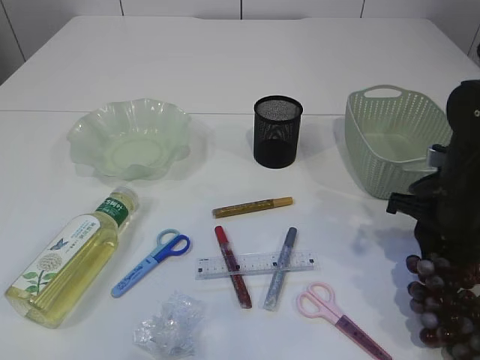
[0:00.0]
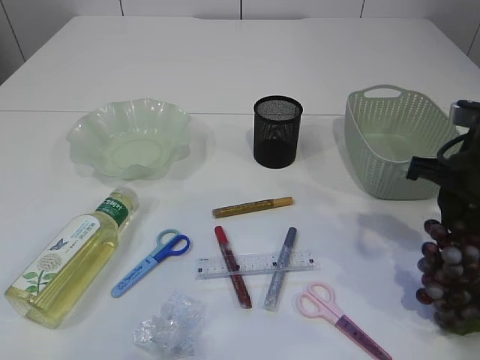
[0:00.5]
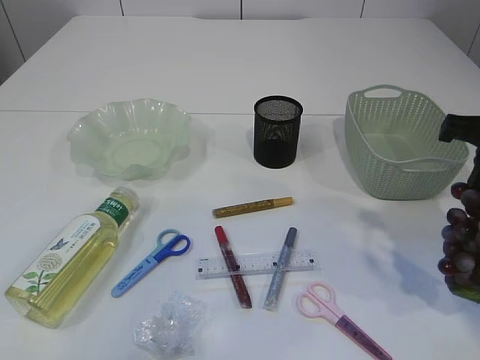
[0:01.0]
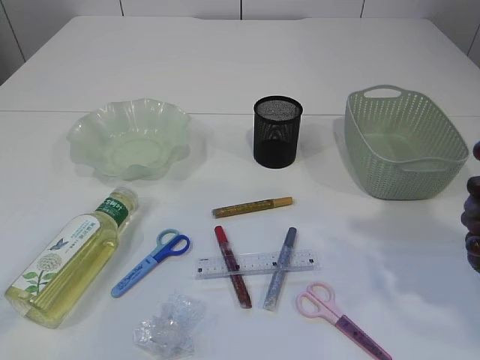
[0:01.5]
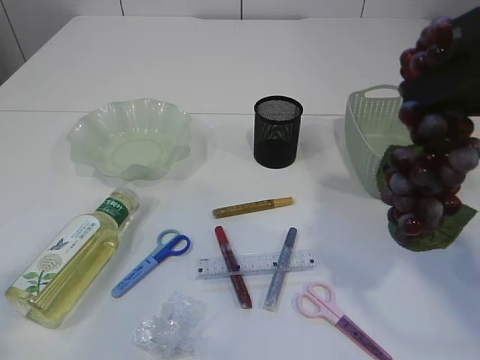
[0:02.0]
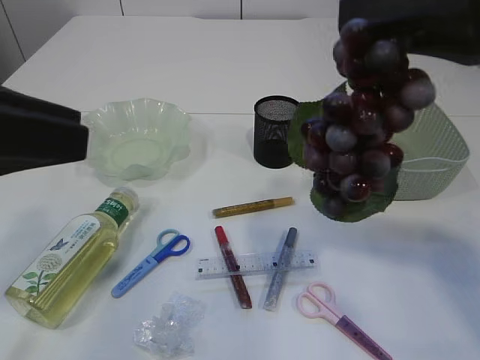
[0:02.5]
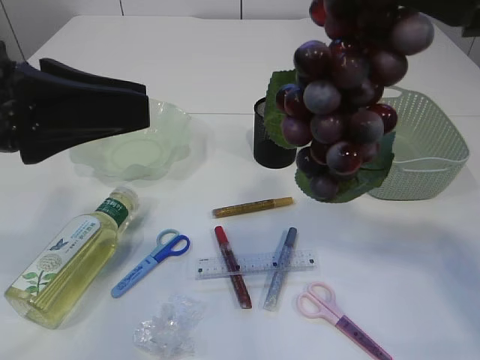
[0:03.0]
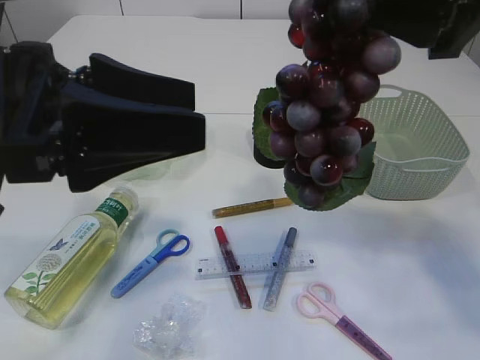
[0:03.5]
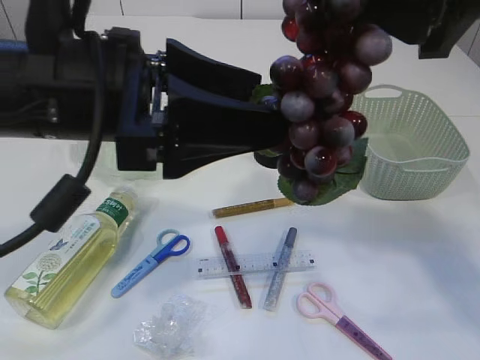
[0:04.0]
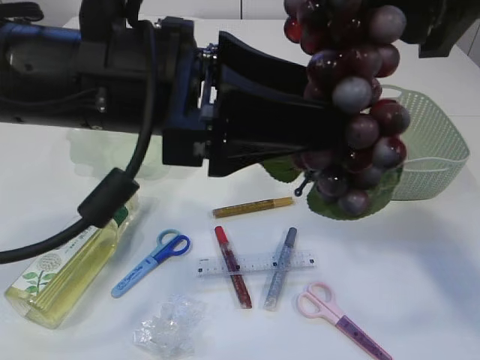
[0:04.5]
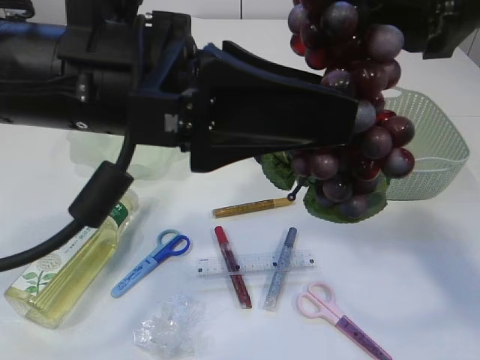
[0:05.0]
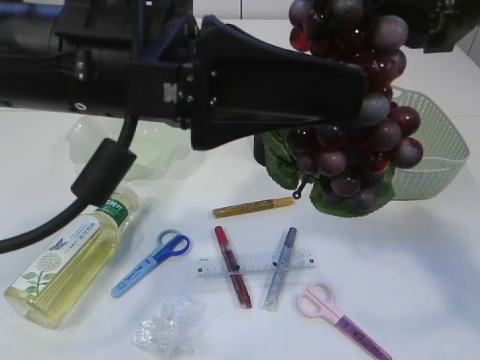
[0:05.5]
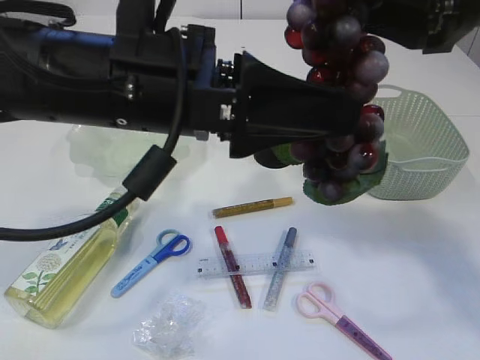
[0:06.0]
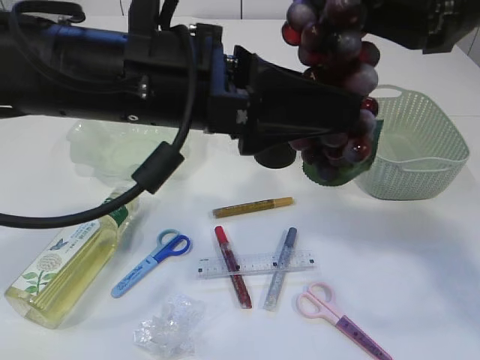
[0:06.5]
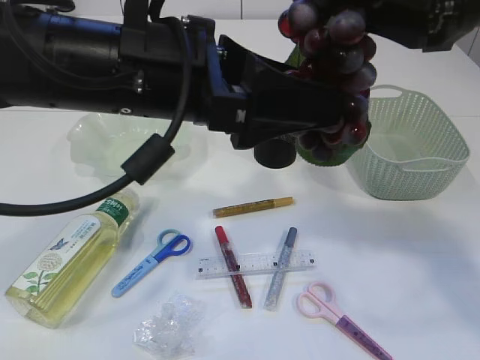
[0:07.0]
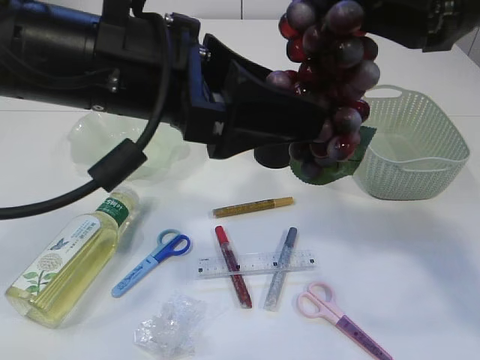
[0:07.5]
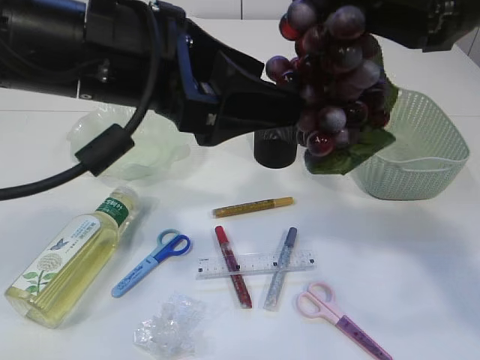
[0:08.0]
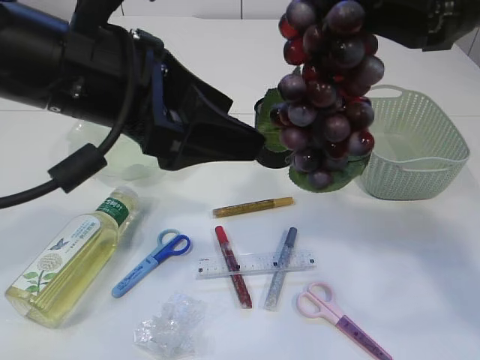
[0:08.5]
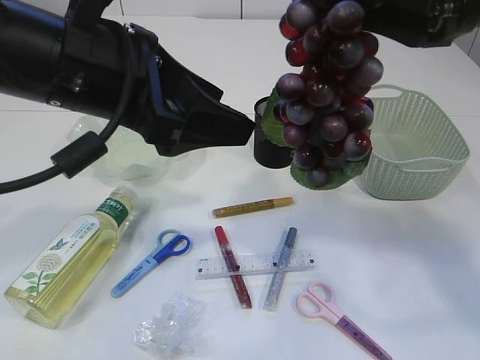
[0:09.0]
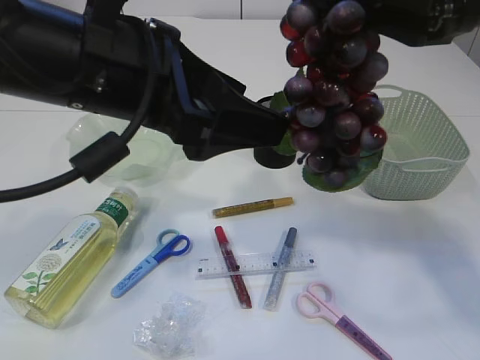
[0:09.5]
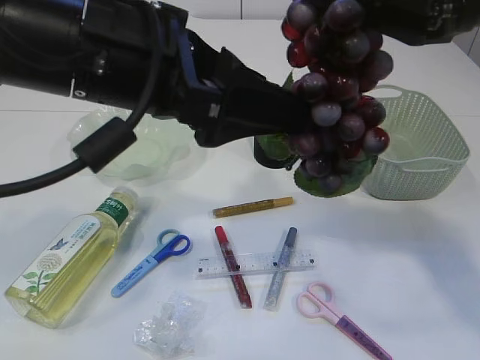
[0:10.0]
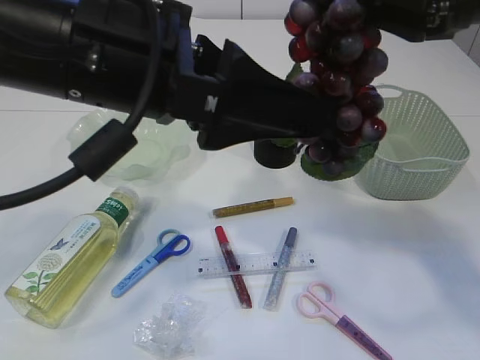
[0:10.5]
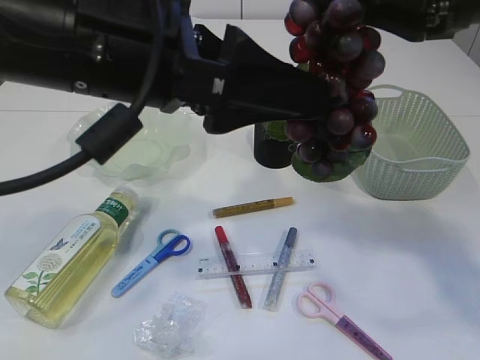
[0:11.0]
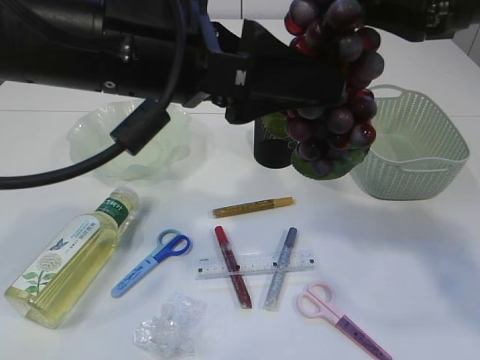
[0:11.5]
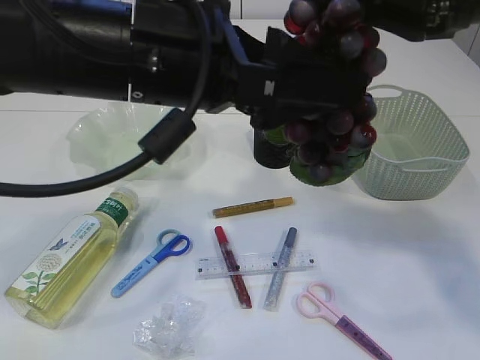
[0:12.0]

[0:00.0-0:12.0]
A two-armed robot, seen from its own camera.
0:00.0 to 0:02.0: The right gripper travels upward and backward by some 25 cm.
0:02.0 to 0:04.0: The left gripper heads to the right and forward, covering some 20 cm, and opens its fingers, while the right gripper ends up about 5 cm from where it was.
0:08.0 to 0:12.0: The grippers stay close to where they were, moving slightly.

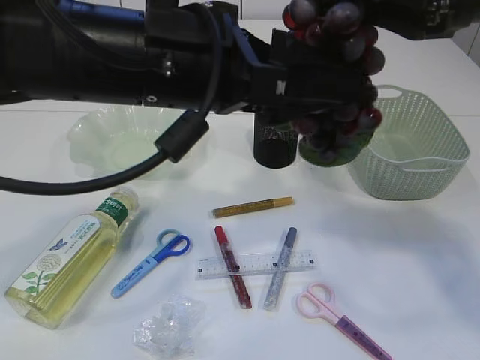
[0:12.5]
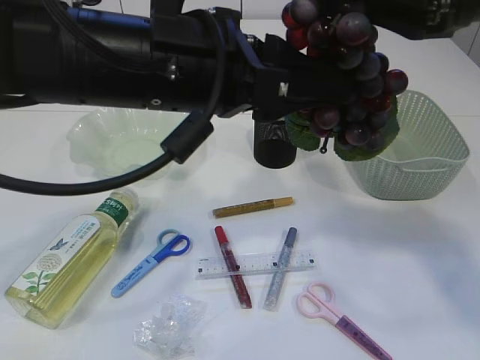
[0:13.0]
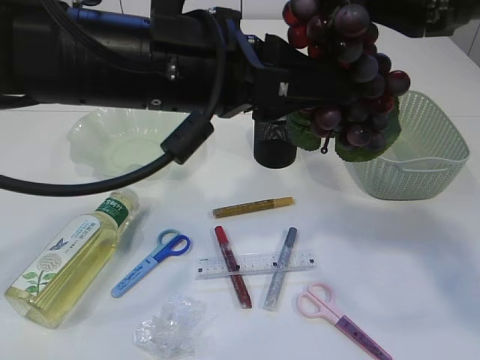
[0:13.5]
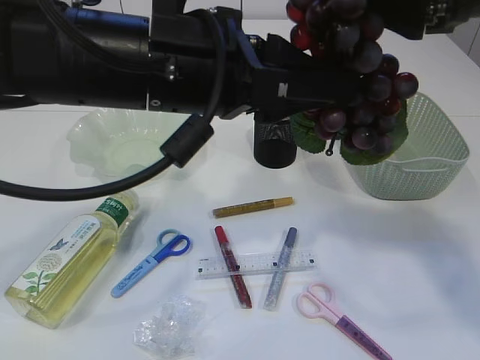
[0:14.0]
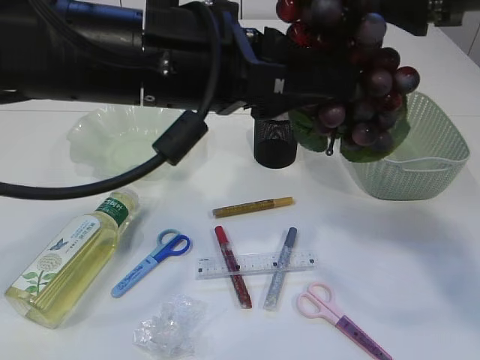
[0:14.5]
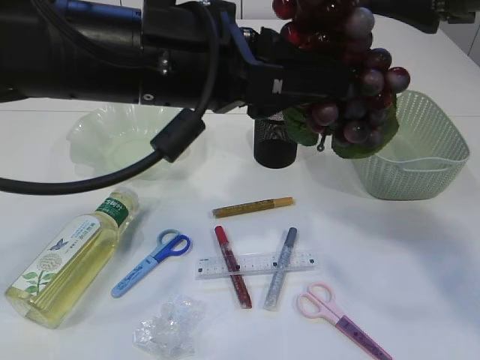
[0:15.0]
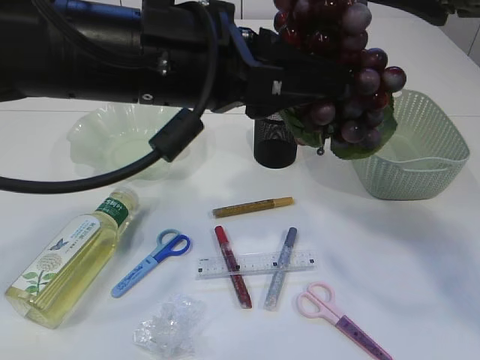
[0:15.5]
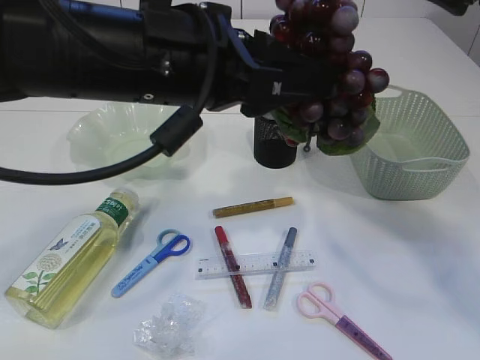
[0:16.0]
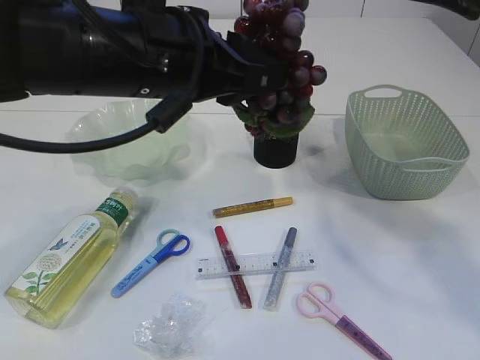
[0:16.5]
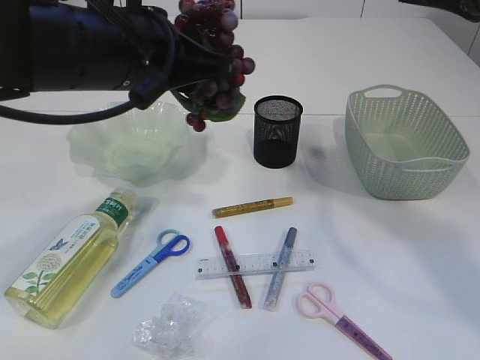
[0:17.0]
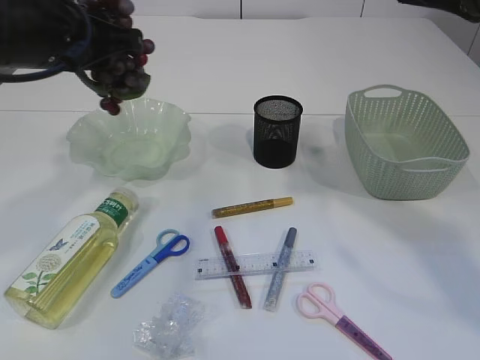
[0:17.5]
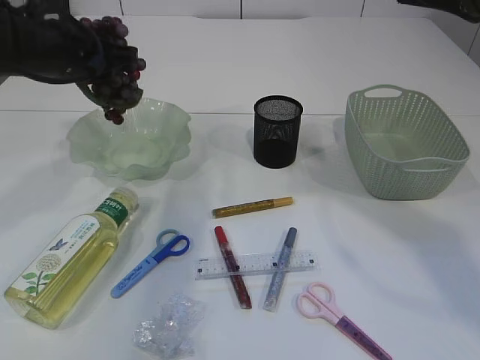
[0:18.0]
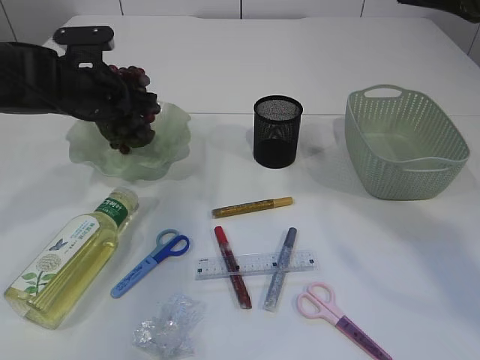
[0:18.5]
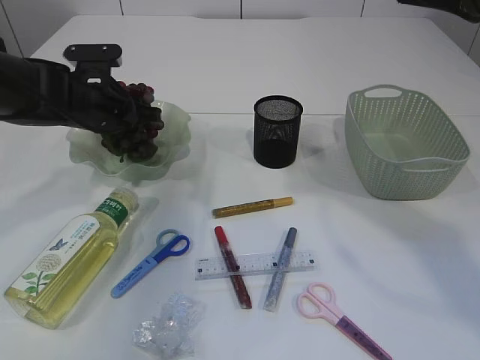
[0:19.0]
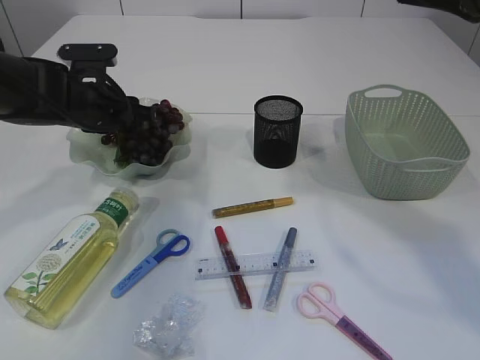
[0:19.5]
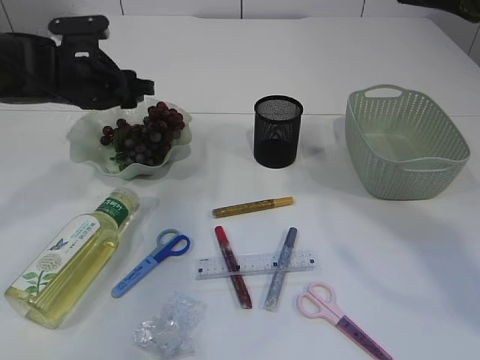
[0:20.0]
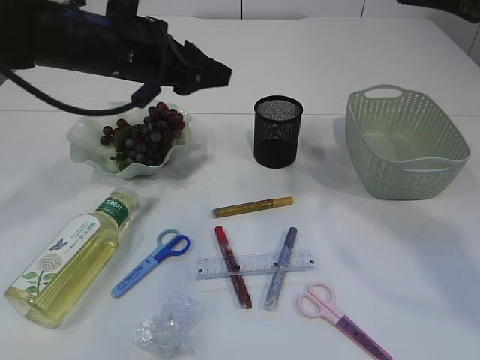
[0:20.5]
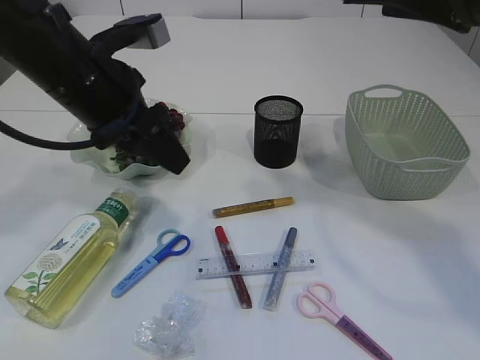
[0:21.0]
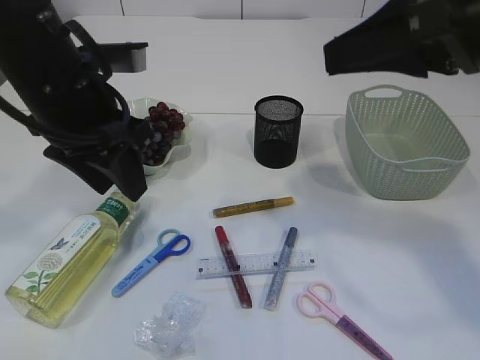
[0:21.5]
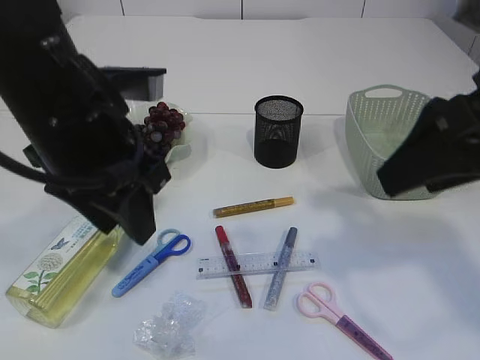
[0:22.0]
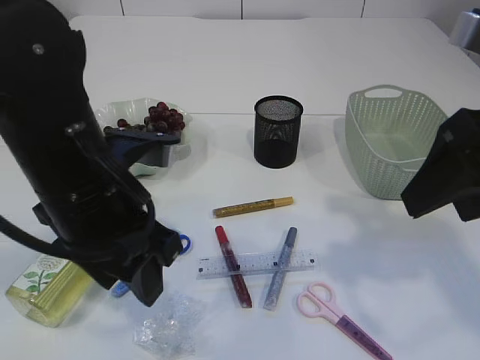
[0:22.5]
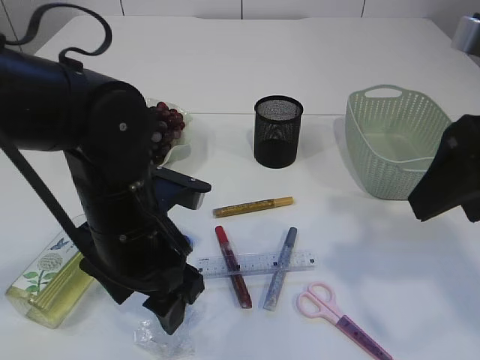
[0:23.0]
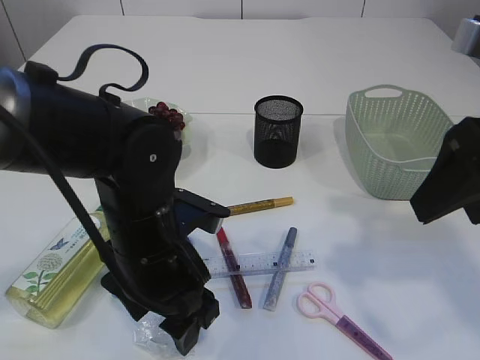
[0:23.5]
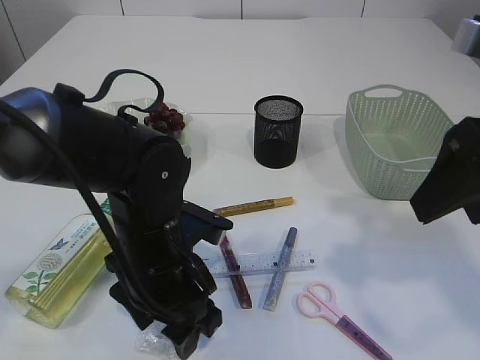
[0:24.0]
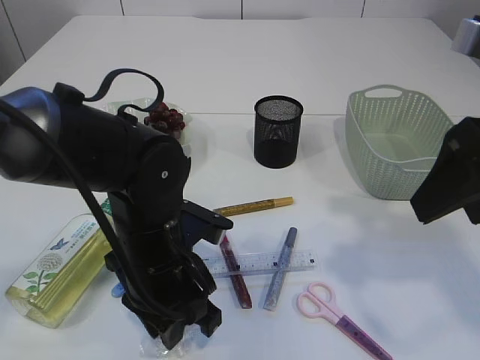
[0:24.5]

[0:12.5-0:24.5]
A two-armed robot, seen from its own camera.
Step, 0:12.5 to 0:16.5: Hand over the grapes.
Step, 0:17.0 to 0:20.5: Place the grapes in the plate.
0:12.5 to 0:14.5: The right gripper opens, while the left gripper closes.
0:16.5 to 0:18.5: The left gripper is displaced forward, to the left and downward by some 25 cm.
0:18.5 to 0:20.5: The left gripper is displaced upward and to the right by about 10 cm.
0:20.5 to 0:22.5: The right gripper goes approximately 10 cm downward and backward. Meanwhile the left gripper shifts about 15 cm backward.
0:22.5 to 0:24.5: The left gripper heads downward, covering some 10 cm, and closes up.

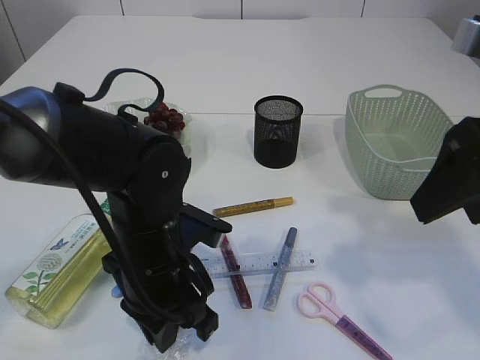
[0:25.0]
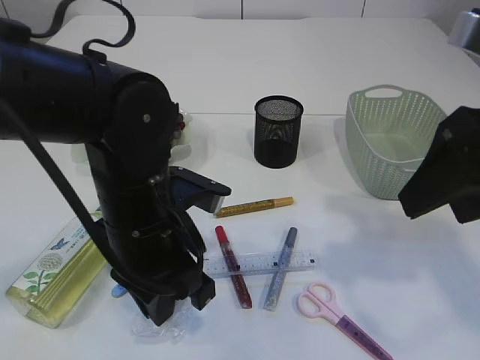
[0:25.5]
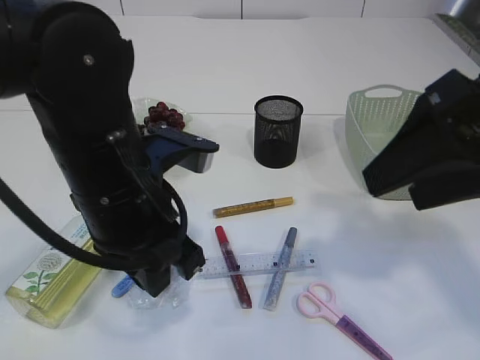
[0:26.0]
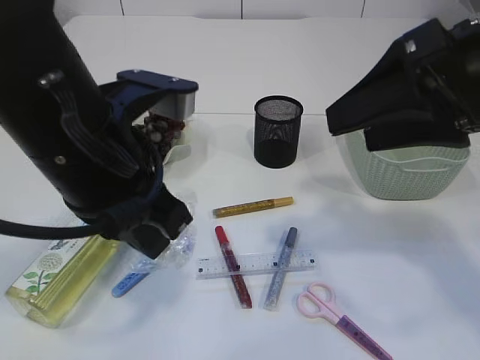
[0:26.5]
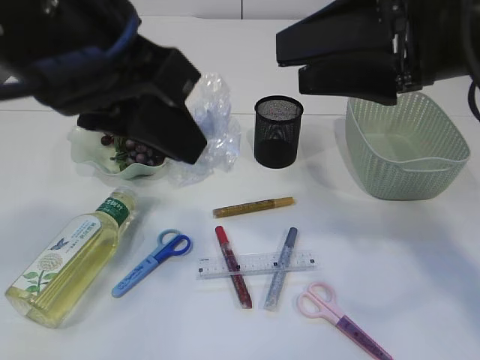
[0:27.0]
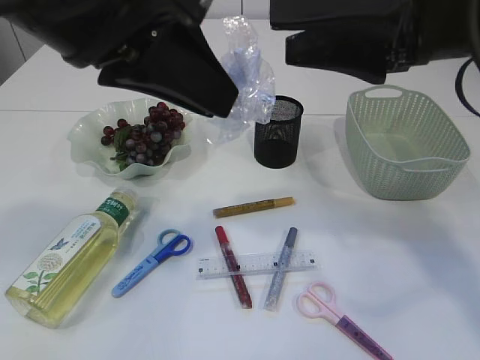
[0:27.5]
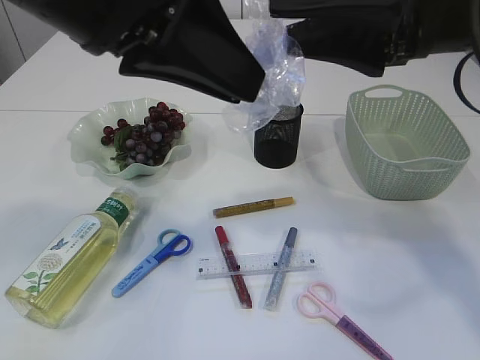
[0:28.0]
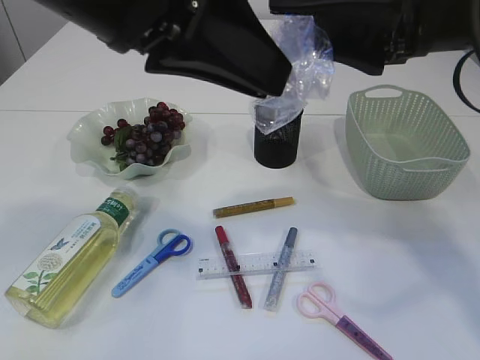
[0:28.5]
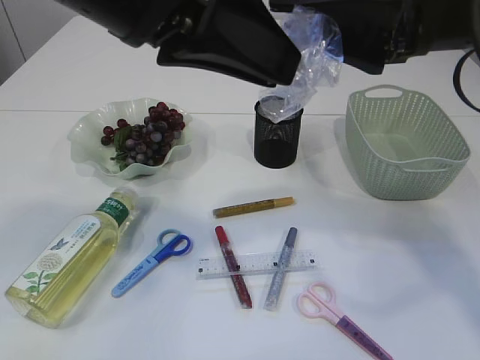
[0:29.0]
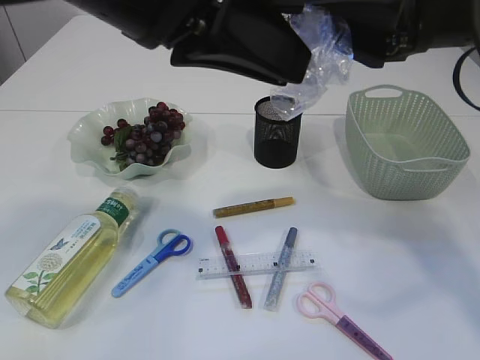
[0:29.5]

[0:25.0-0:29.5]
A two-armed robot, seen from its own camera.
0:25.0 to 0:27.0: The left gripper travels upward by about 25 cm, while the right gripper travels to the left by about 5 cm.
